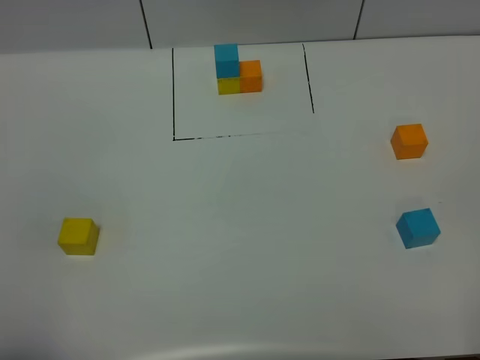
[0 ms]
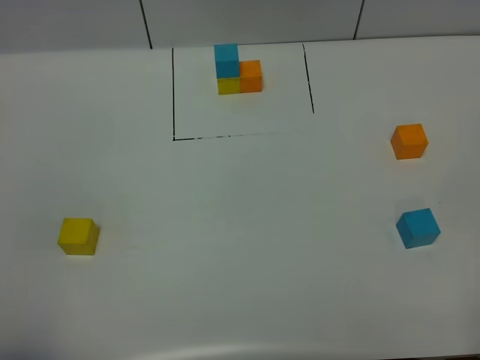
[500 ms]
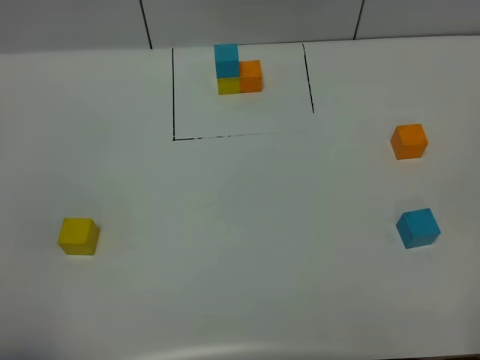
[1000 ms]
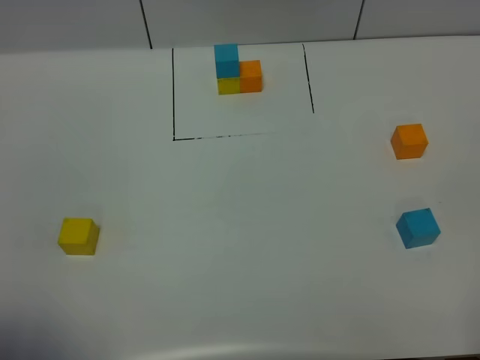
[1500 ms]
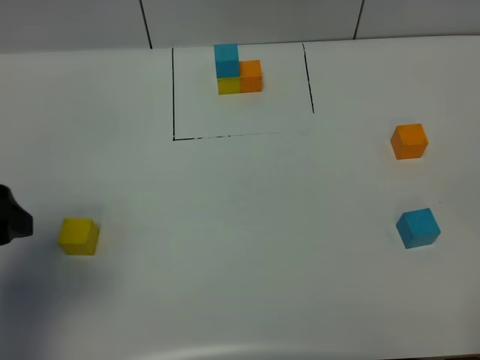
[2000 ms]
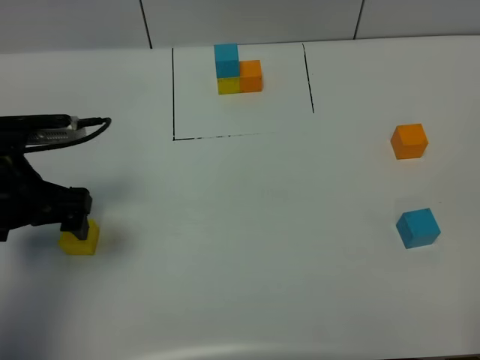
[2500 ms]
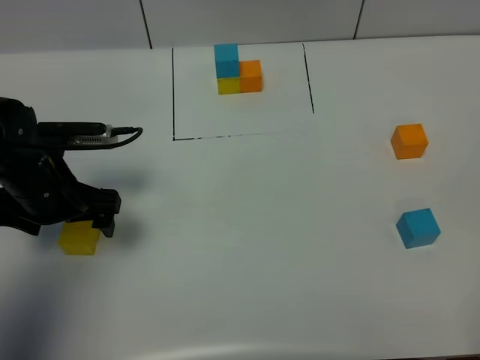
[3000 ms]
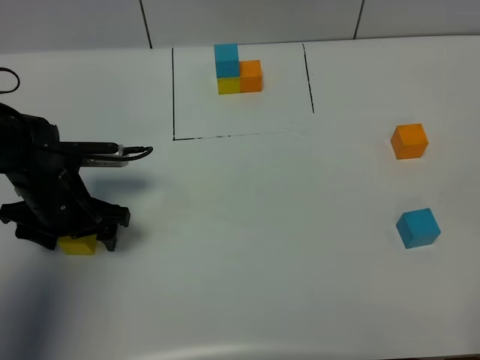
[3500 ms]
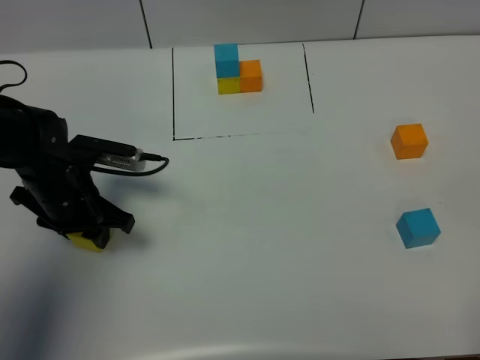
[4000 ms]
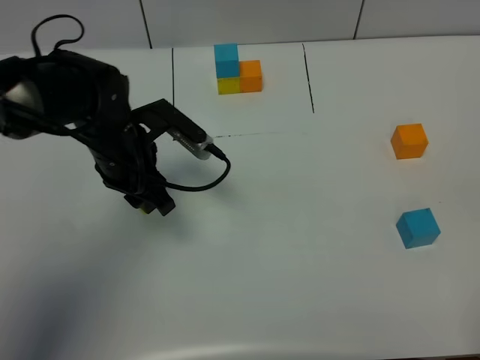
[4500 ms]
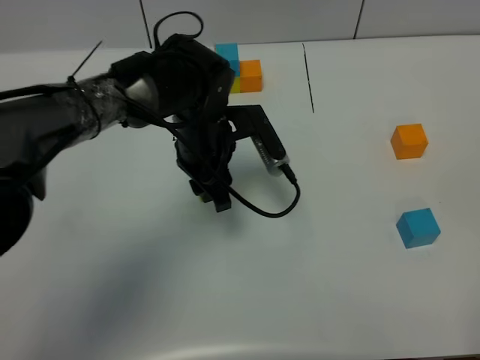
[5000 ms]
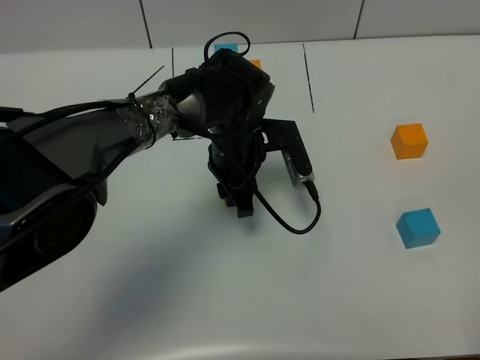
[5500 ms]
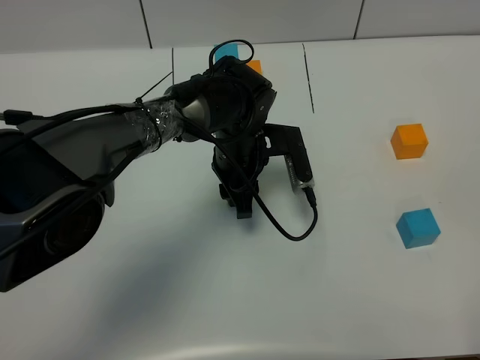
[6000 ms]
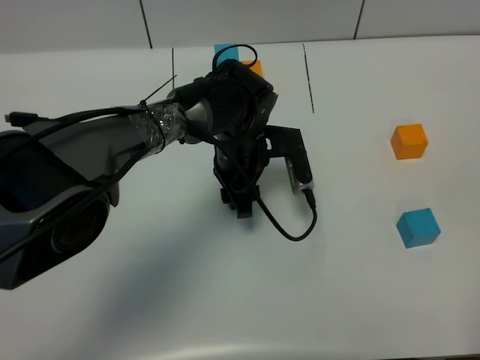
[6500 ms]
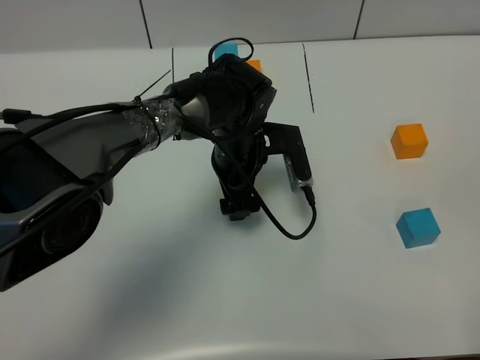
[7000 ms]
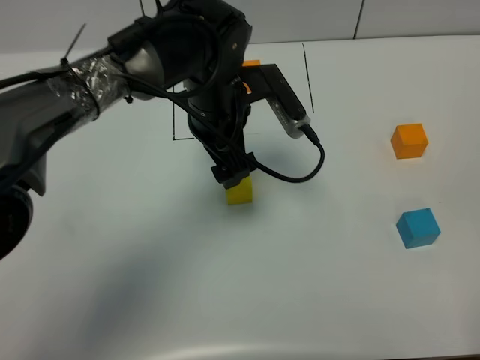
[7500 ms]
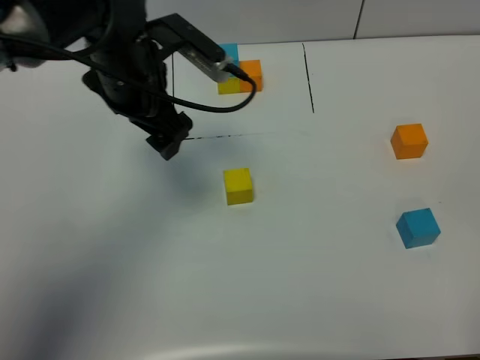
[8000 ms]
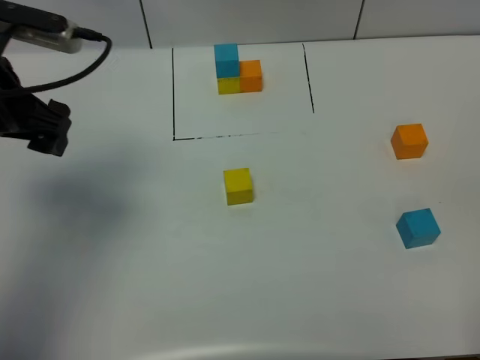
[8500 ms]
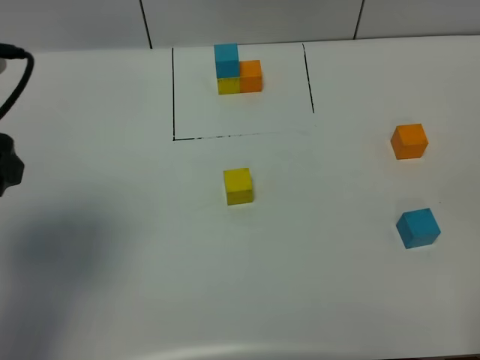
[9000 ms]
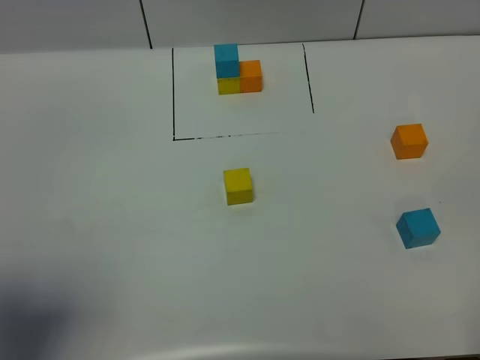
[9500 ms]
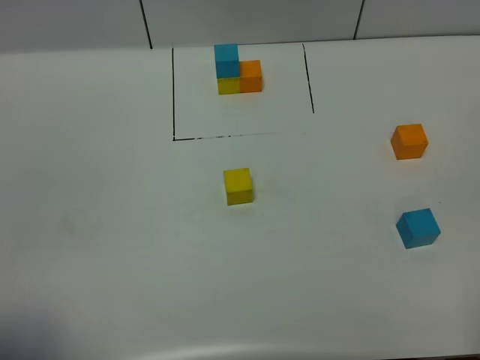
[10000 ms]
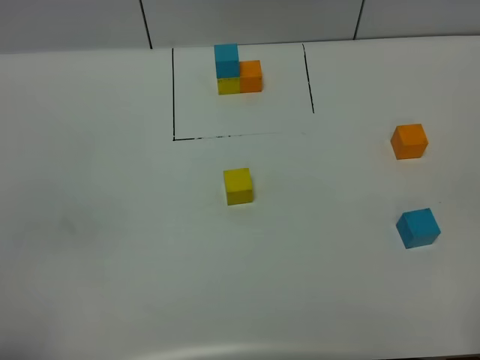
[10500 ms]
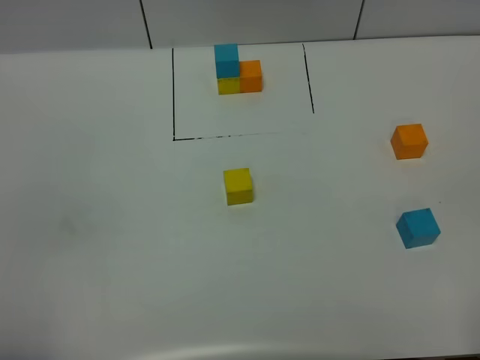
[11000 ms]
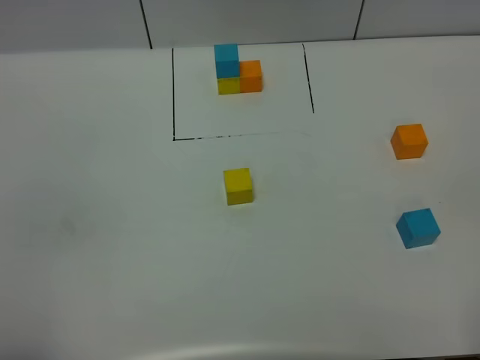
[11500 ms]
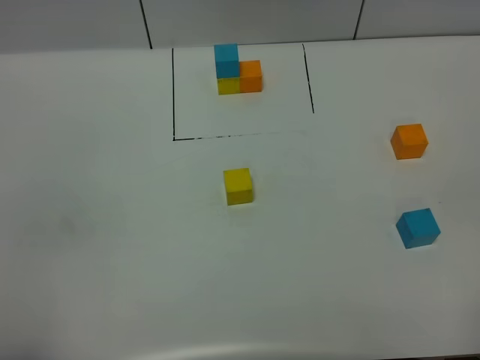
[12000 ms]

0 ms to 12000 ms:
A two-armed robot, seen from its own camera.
Task of the whole recording: According to the building block template in front, assemble the scattered blocks together.
Step, 2000 ms to 6500 ms: Put the yellow cube in the center of the table.
0 ms to 2000 ms: The left gripper shifts some 20 cm forward, and opens its fingers.
2000 ms to 4000 ms: The left gripper travels downward, forward and to the right by roughly 20 cm, and closes its fingers.
4000 ms to 6000 ms: The left gripper travels to the right by about 20 cm.
6000 ms to 8000 ms: The left gripper travels upward and to the left by roughly 20 cm, and opens its fingers.
8000 ms to 10000 ms: The left gripper heads backward and to the left, covering some 40 cm.

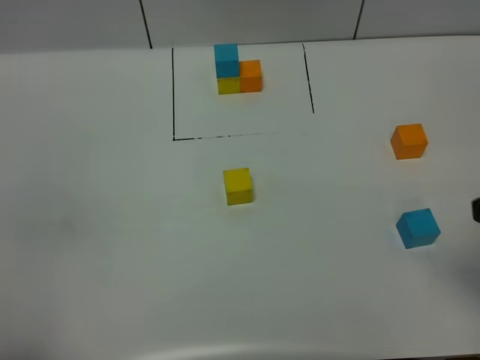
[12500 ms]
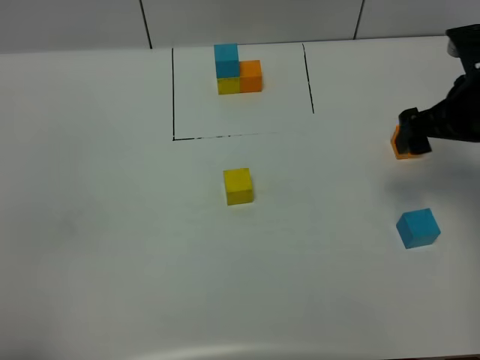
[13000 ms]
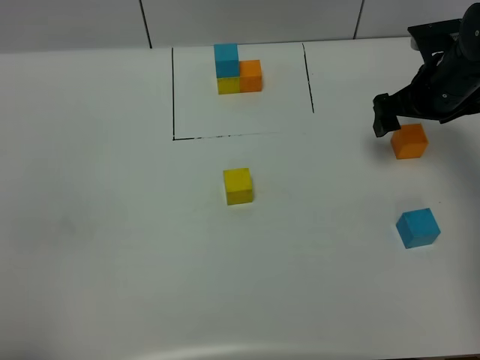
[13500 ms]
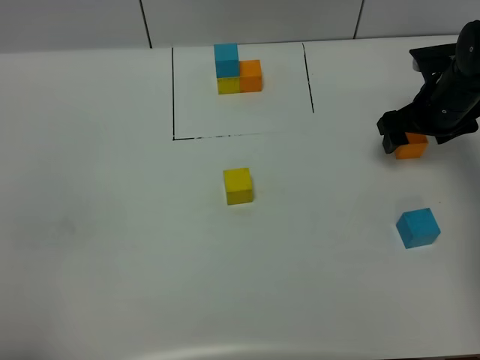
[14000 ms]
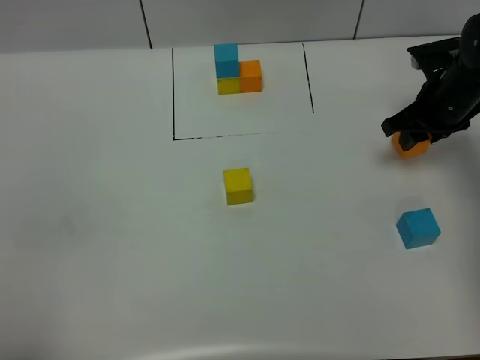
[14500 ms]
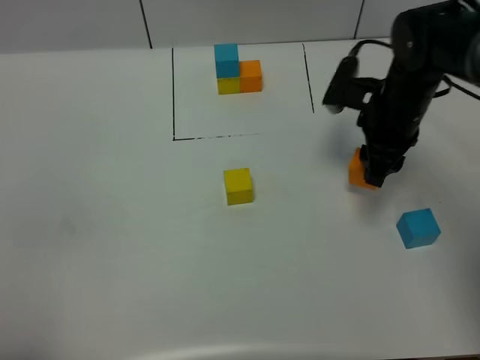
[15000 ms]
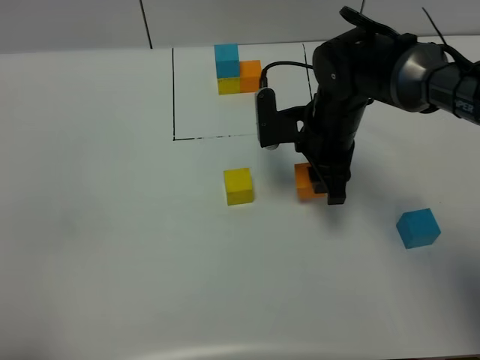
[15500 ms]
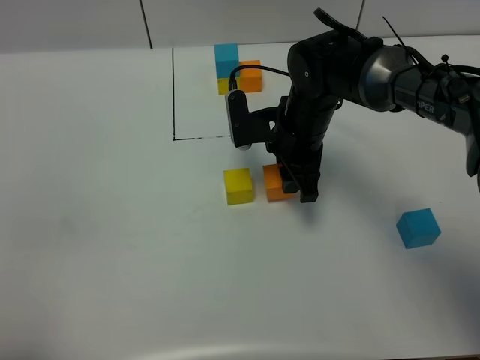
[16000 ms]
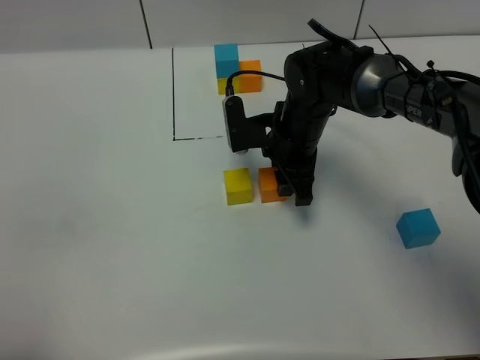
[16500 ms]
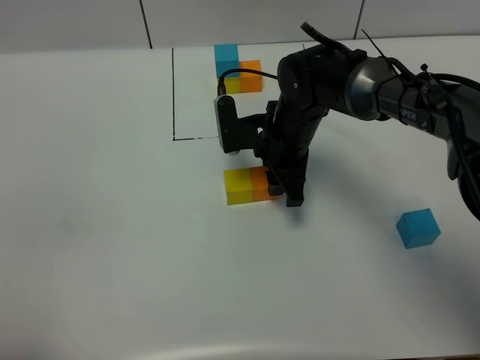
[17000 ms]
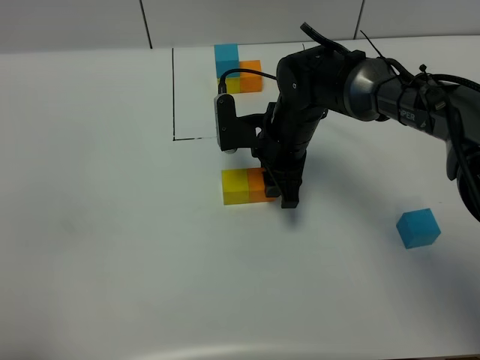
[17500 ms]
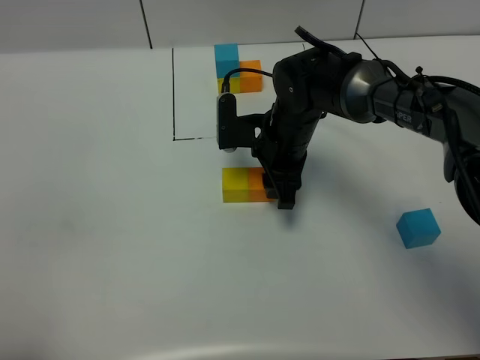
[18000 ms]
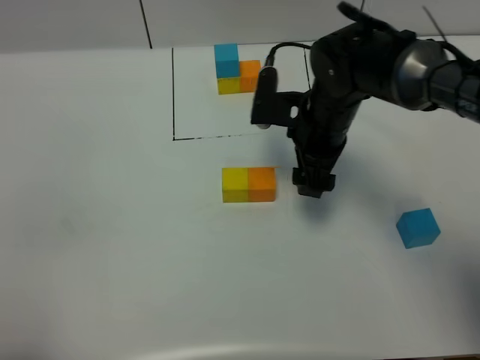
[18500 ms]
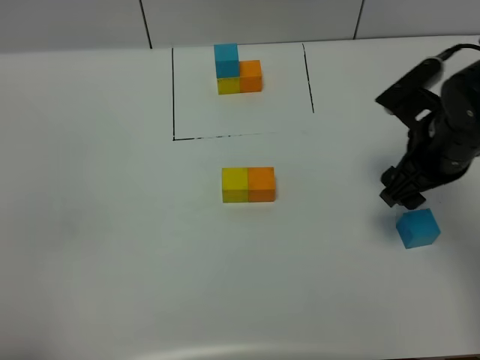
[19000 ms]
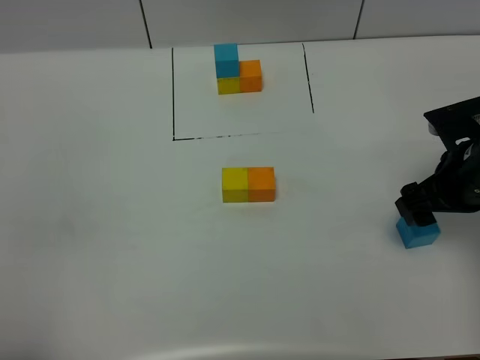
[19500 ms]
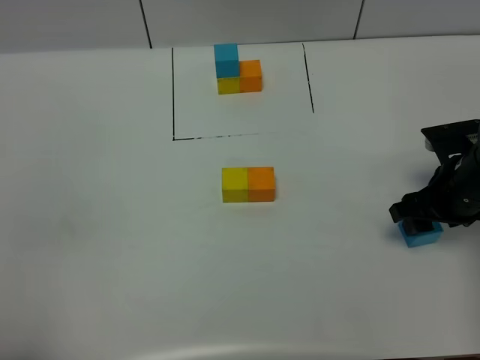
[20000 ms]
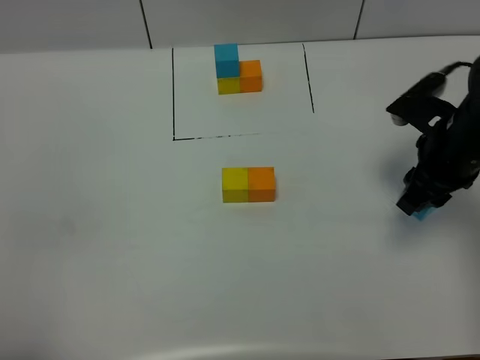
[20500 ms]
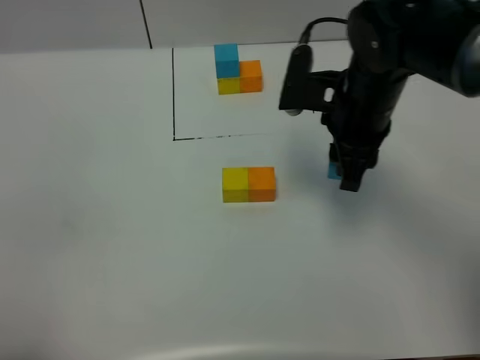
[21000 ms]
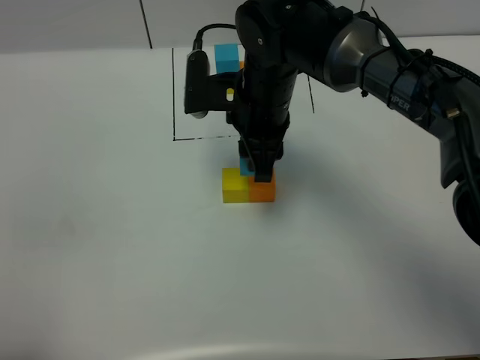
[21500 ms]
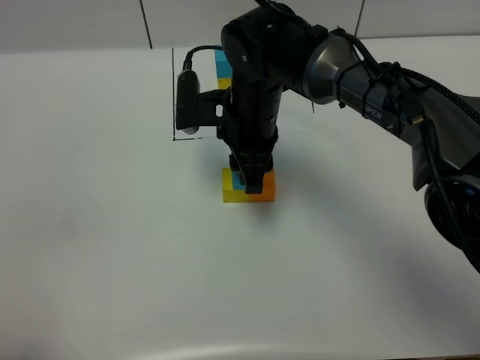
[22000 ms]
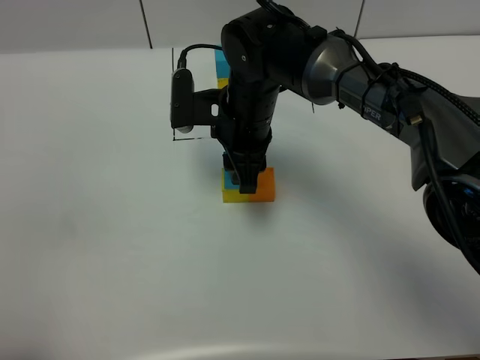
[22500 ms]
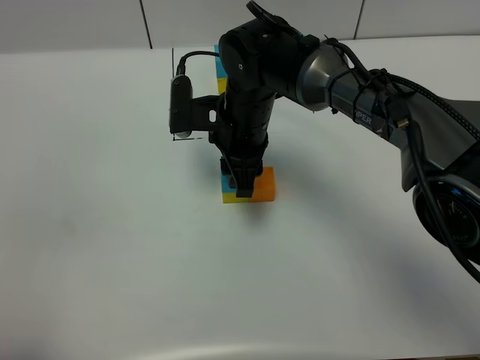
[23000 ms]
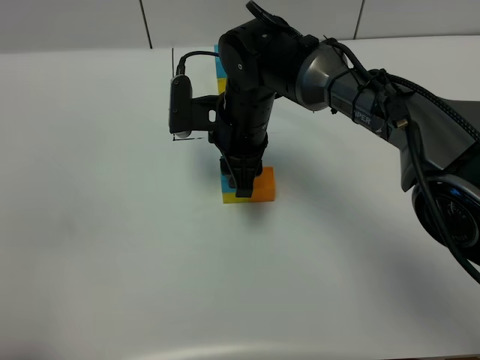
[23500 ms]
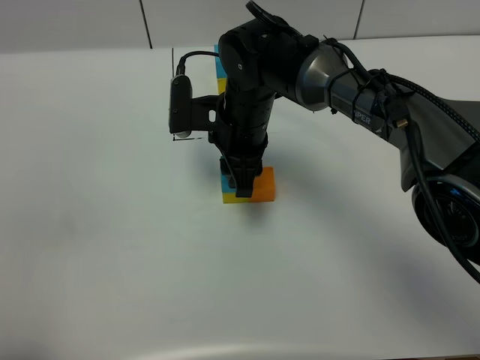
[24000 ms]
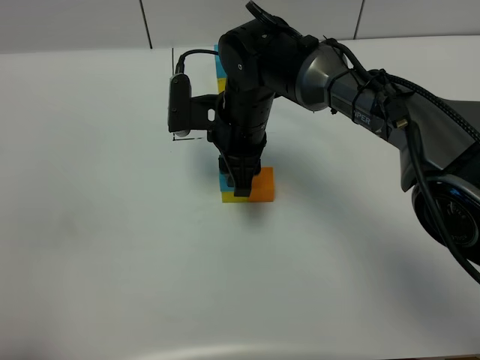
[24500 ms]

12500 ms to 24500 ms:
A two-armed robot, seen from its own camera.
Task of the whole recording: According to the building block template in front, assemble the scattered blocks together.
Step, 12500 ms to 18000 ms: Put the orange cube on the right of the yellow cube.
12500 ms to 14500 ms: The right gripper goes approximately 30 cm forward and downward, and closes its fingers.
14500 ms to 16500 ms: The right gripper is displaced to the left by some 20 cm.
16500 ms to 18500 ms: The right gripper moves about 5 cm, and opens up.
18500 ms to 20500 ms: The right gripper moves to the right, about 15 cm, and closes up.
20500 ms to 22500 ms: The right gripper goes some 25 cm to the left.
22500 ms to 24500 ms: There are only small adjustments of the grippers.

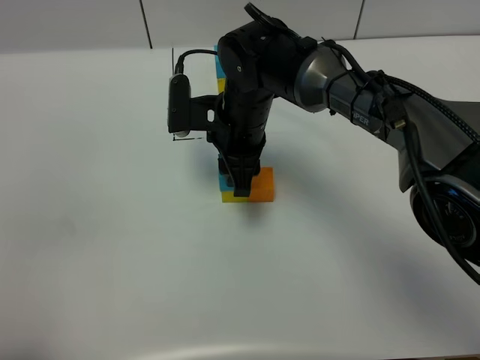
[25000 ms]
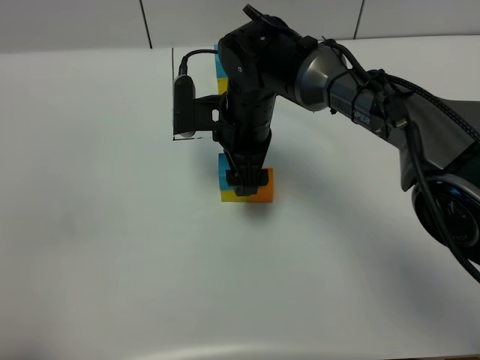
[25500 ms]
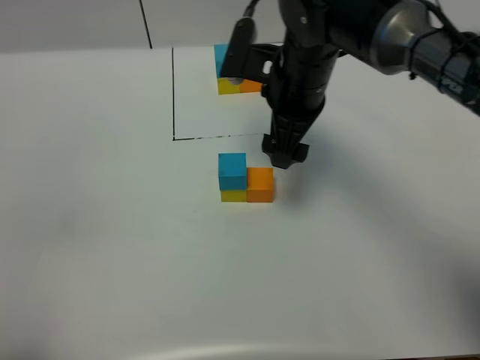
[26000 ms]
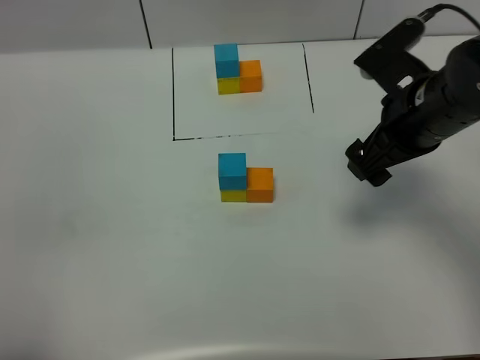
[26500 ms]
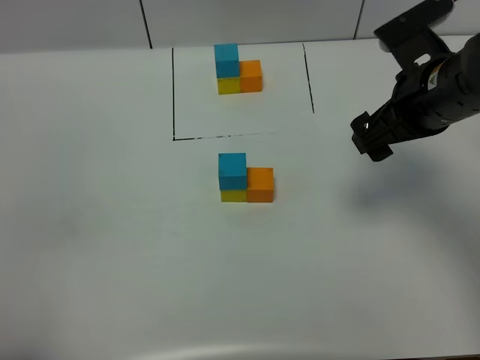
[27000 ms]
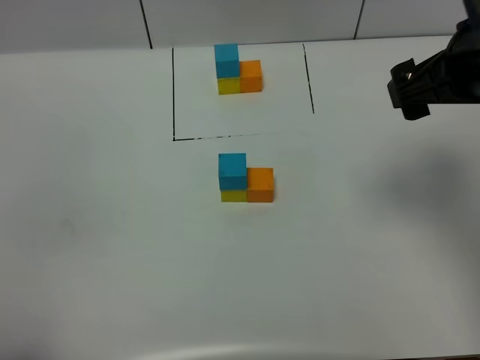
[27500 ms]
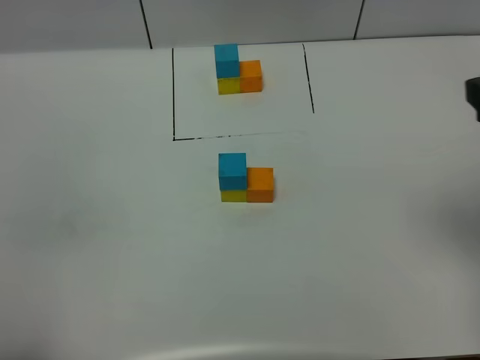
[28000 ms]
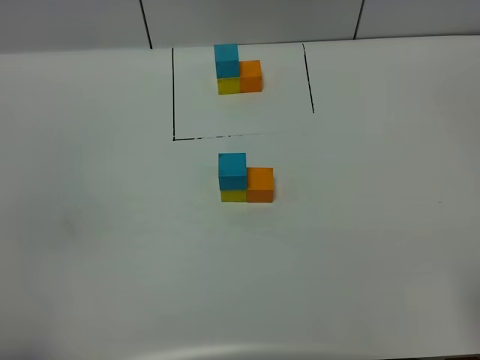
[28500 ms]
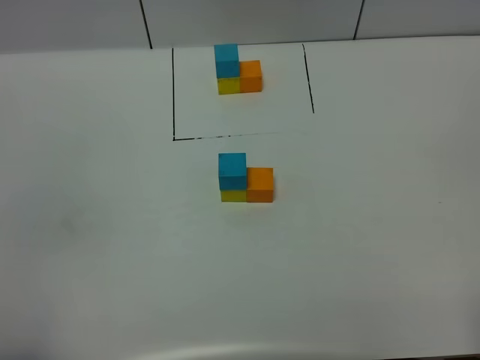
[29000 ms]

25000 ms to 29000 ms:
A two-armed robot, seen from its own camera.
Task of the whole recording: According to the building block template in front, assemble the scattered blocks together.
25000 ms to 27000 ms: The right gripper heads to the right and upward, covering roughly 20 cm, and opens up.
27000 ms to 29000 ms: The right gripper heads backward and to the right, covering roughly 35 cm.
